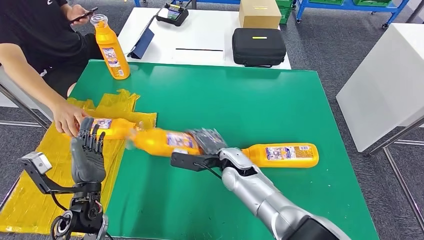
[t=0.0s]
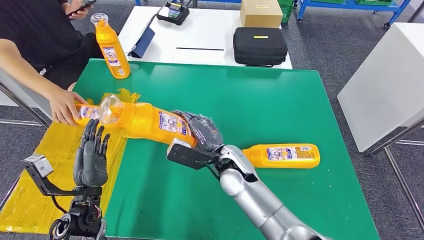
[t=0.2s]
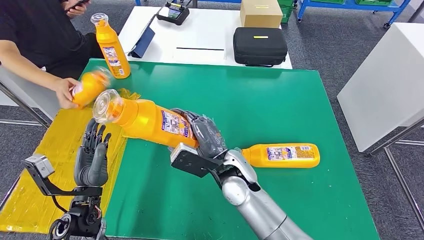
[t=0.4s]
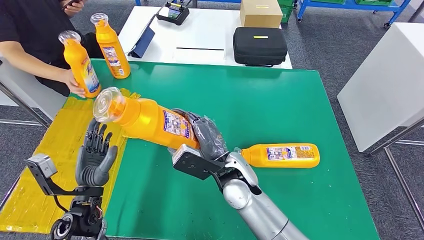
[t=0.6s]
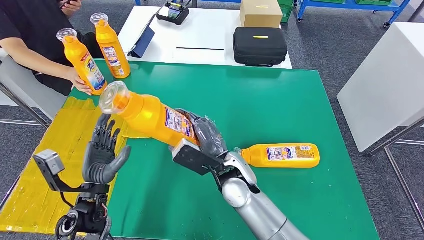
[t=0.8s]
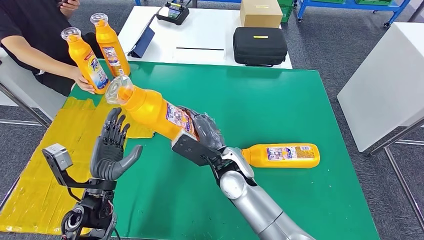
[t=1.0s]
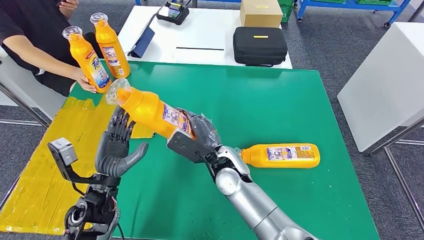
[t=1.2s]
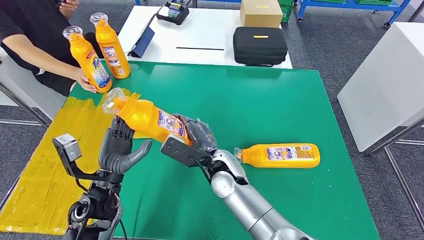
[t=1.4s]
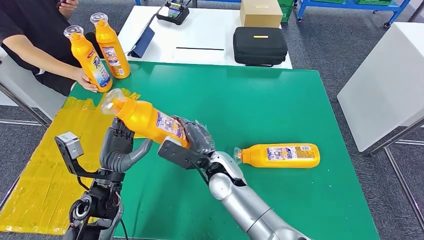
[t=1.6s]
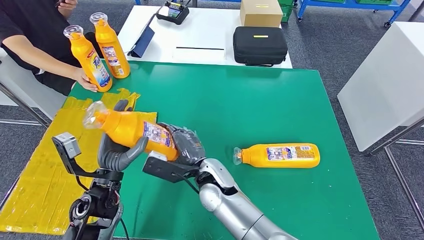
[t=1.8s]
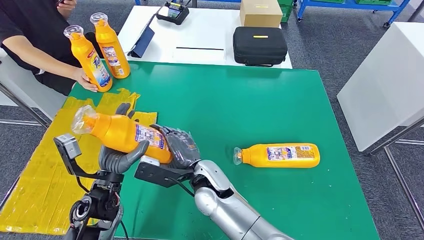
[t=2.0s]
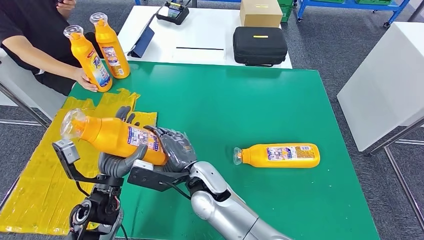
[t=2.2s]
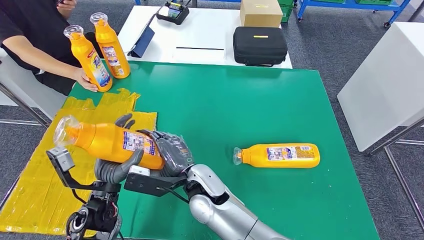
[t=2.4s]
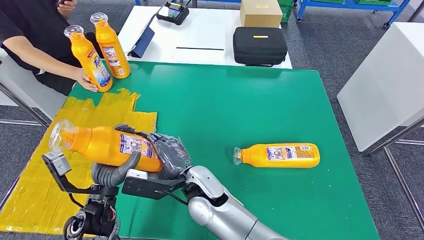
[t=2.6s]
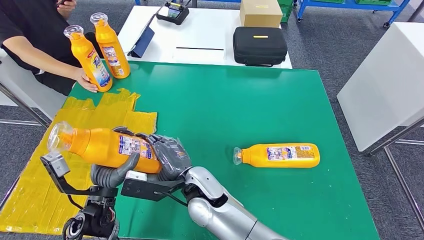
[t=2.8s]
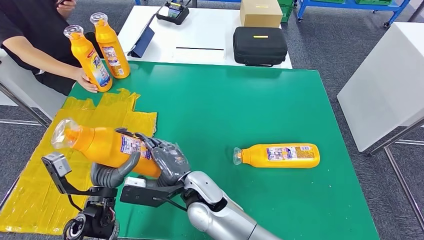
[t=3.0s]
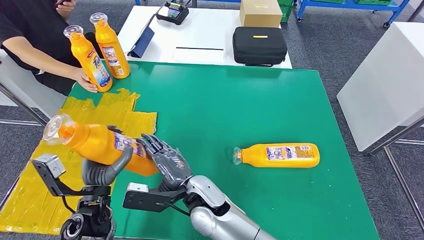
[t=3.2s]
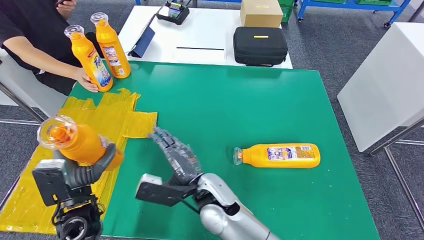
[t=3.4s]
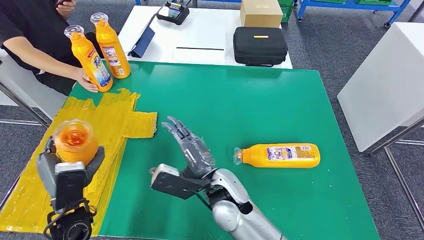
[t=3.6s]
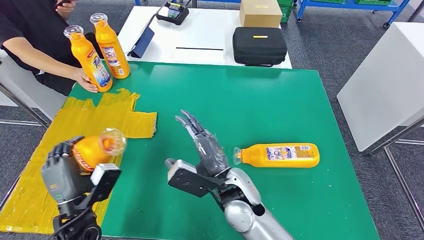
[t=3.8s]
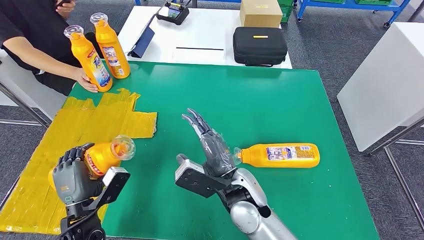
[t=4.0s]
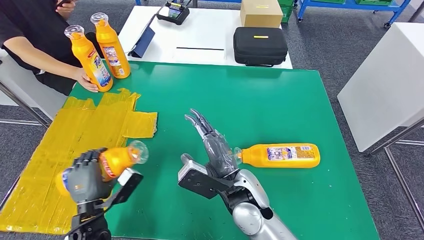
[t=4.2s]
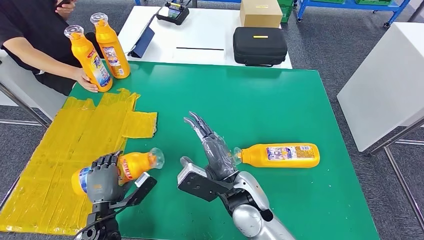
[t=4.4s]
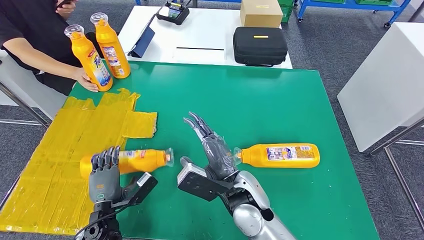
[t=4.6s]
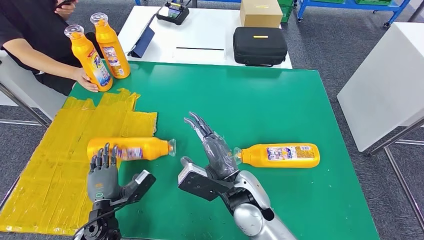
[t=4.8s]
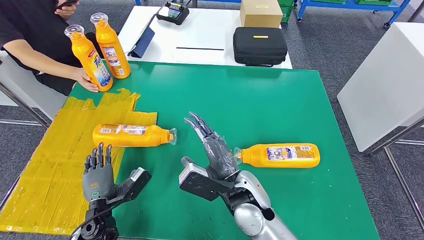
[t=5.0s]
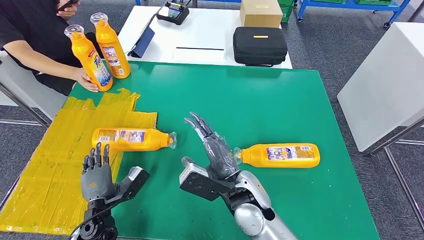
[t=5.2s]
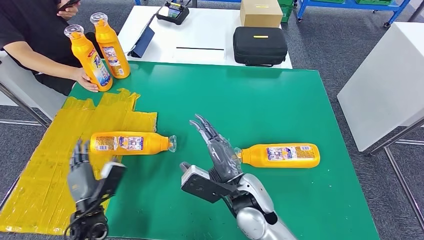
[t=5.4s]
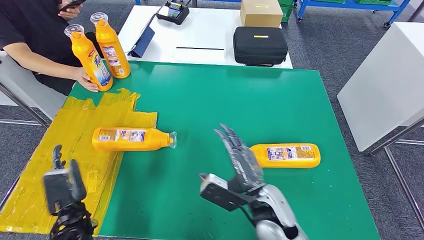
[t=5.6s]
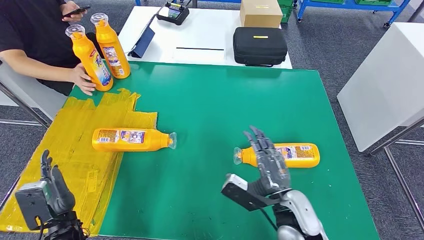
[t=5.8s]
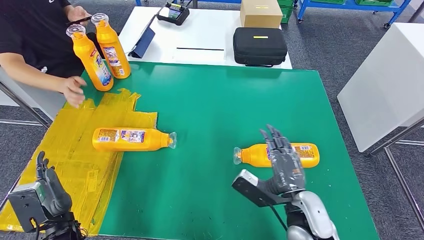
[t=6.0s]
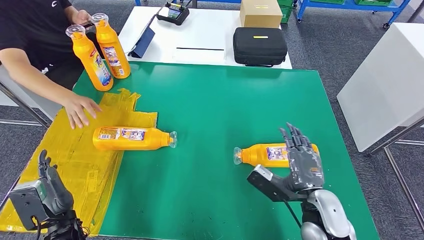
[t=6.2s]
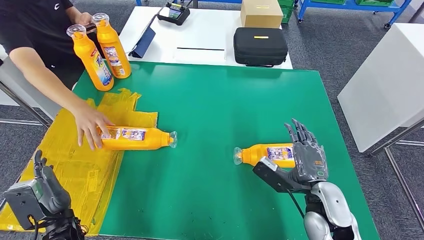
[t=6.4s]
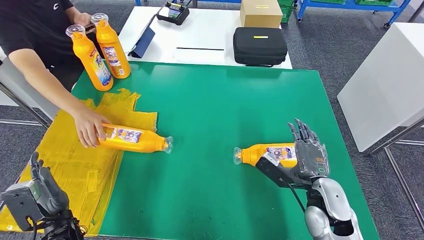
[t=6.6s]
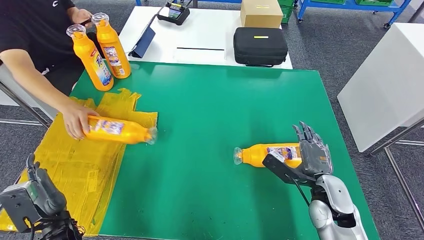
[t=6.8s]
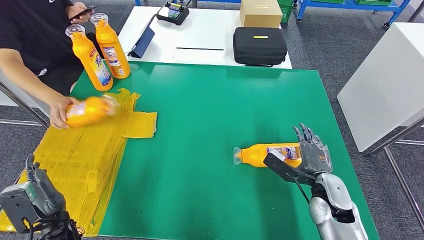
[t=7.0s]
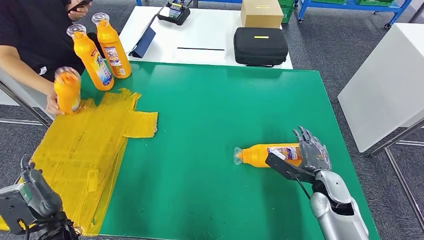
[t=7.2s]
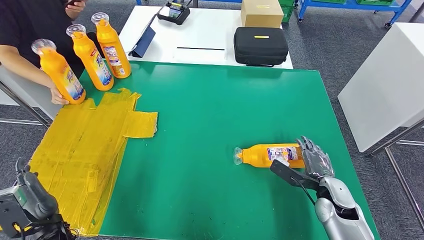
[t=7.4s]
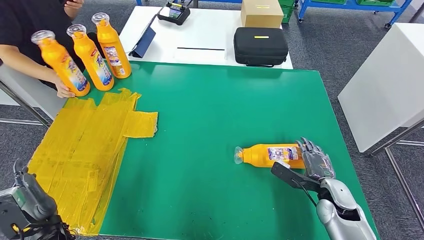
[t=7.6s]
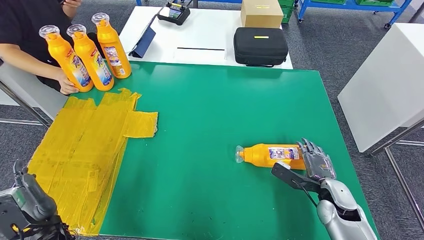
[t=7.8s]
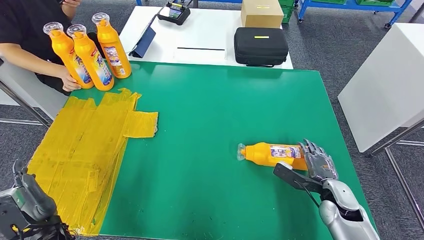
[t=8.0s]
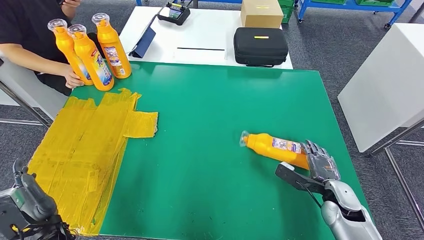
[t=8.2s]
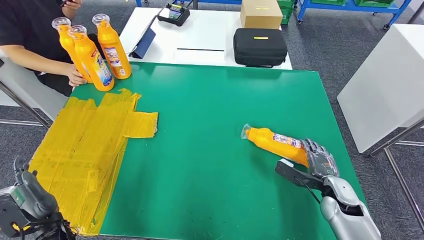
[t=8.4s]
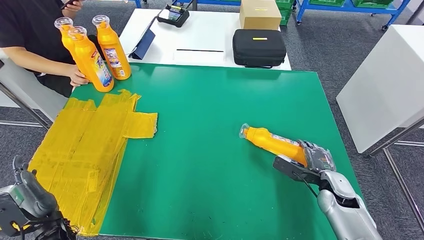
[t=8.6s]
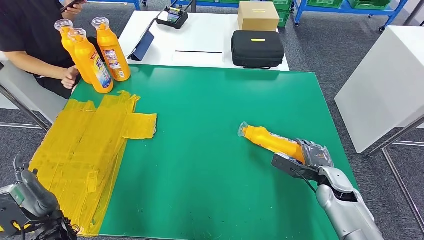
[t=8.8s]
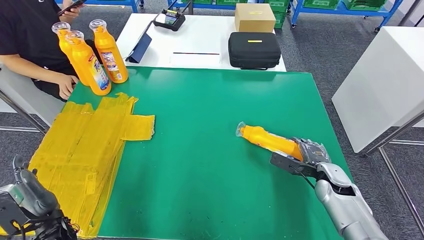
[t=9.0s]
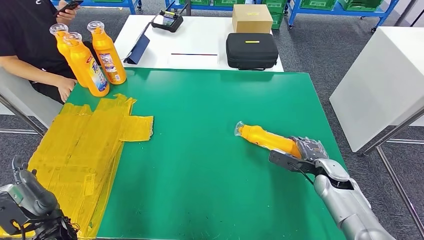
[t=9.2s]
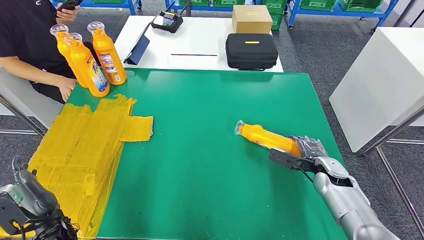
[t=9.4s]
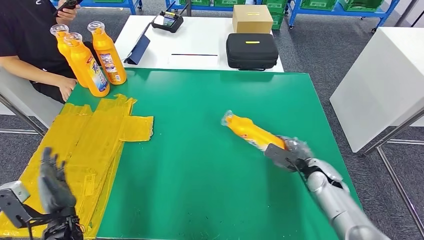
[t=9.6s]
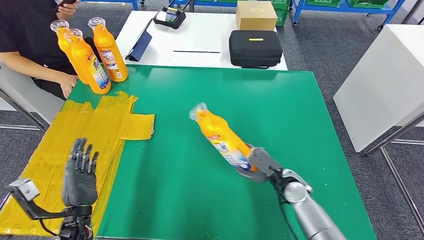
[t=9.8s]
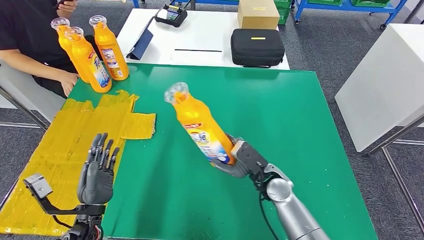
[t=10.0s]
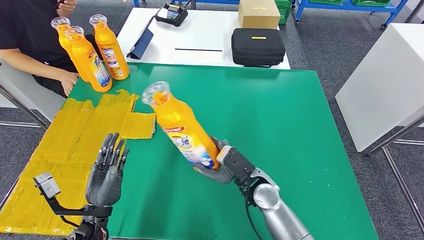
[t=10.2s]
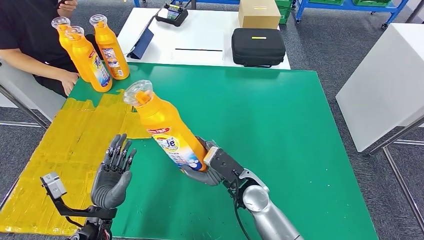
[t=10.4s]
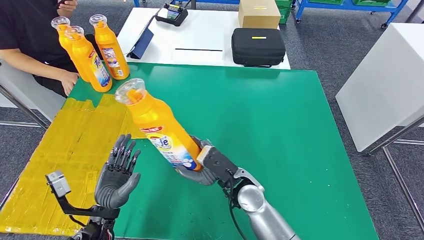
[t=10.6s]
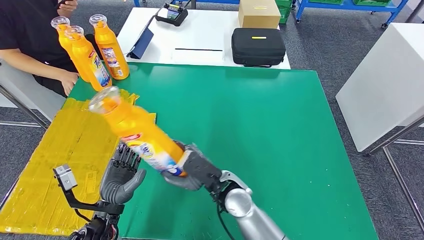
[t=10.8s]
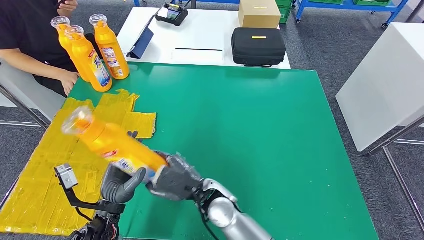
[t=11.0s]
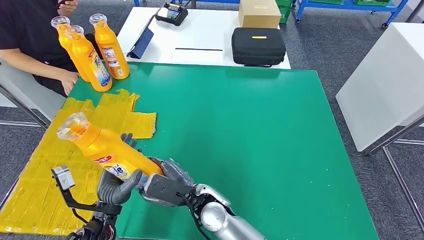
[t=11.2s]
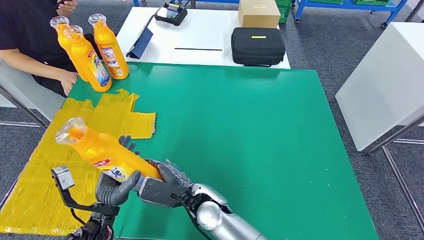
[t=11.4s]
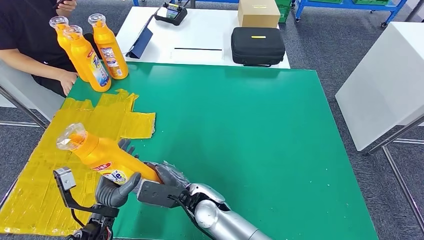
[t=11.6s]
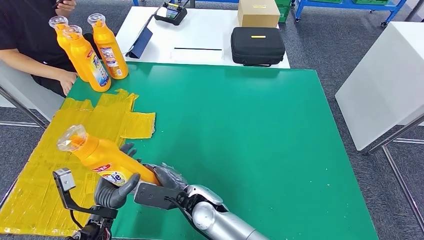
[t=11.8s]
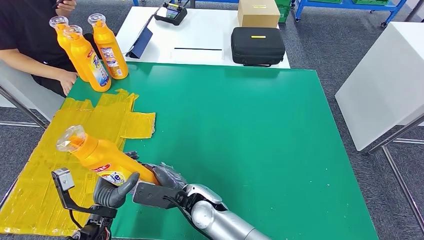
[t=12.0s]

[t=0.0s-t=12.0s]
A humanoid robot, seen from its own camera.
Step, t=0.0s to t=1.0s: Pick up the fast-moving consumer goods bottle from the table.
Step, t=1.8s to t=4.8s: Flip the fast-moving consumer goods bottle to the front side.
Step, t=8.6s to t=10.2s: Pick up the fast-moving consumer goods bottle from the table.
t=1.6s to t=3.0s: The right hand is displaced to the left by some 5 cm.
t=3.0s to t=4.4s: The right hand shifts some 10 cm to the right. The left hand heads downward, covering approximately 10 cm.
t=6.0s to t=7.6s: The right hand moves to the right and downward, roughly 15 cm.
t=10.4s to t=12.0s: The right hand moves to the left, about 10 cm.

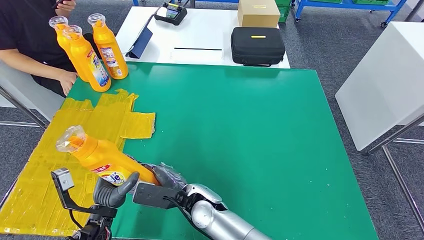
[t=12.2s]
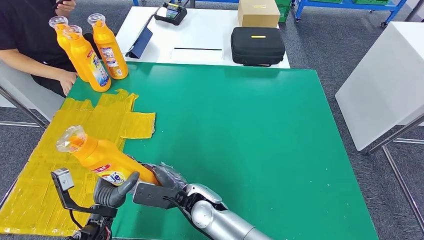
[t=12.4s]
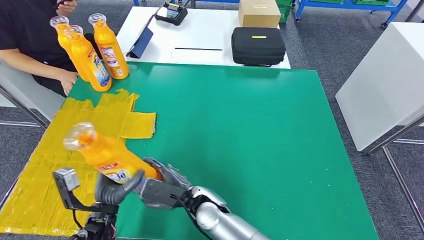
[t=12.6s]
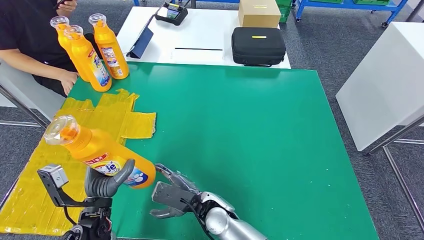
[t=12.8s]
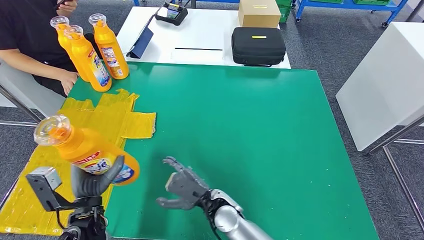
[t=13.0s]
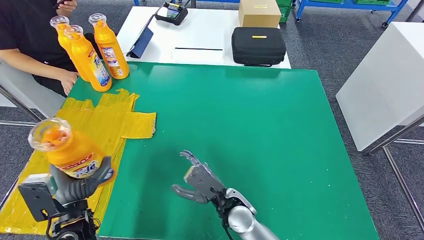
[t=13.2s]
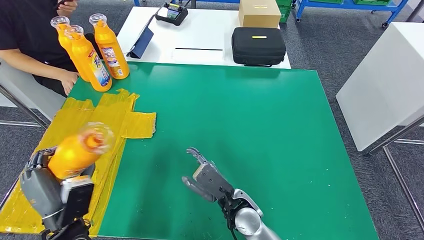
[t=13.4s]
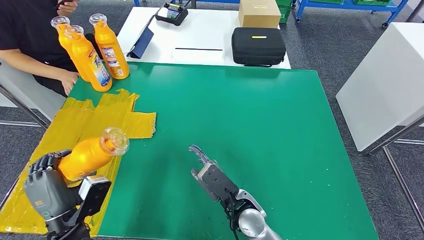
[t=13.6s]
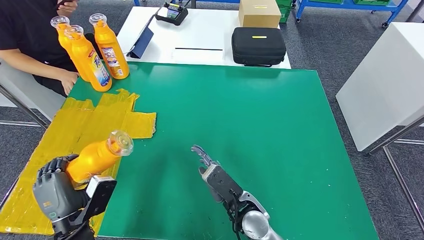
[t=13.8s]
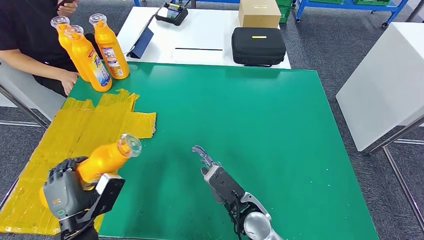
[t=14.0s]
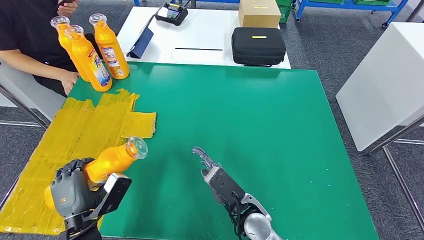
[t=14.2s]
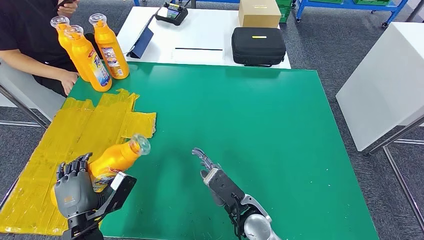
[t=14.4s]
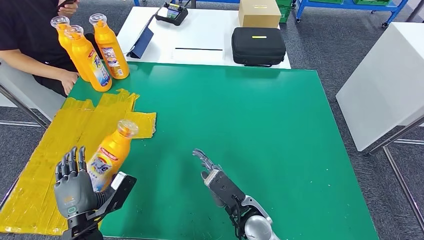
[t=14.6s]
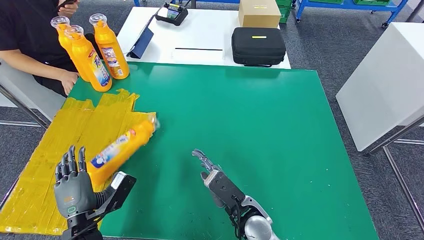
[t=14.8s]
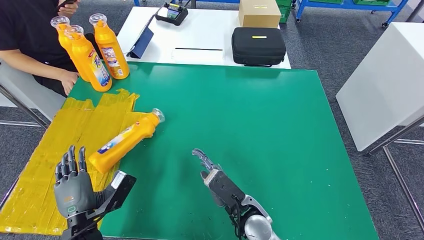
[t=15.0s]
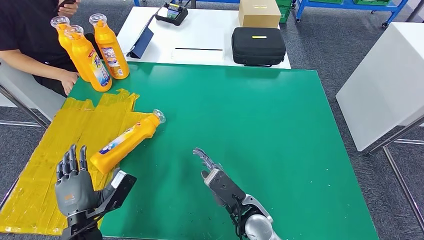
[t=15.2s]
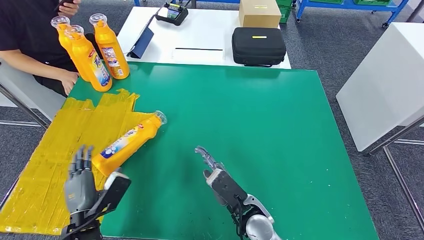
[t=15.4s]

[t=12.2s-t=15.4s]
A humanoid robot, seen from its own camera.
Step, t=12.2s to t=15.4s: Flip the fast-moving consumer goods bottle to the front side.
t=12.2s to t=13.8s: The right hand goes roughly 10 cm to the right.
